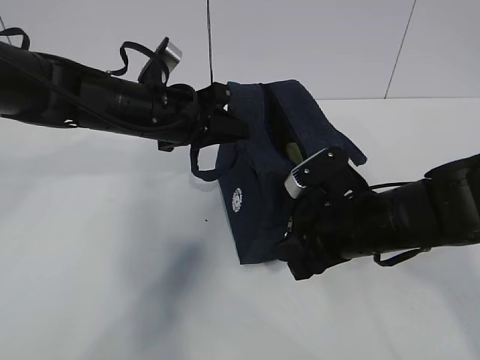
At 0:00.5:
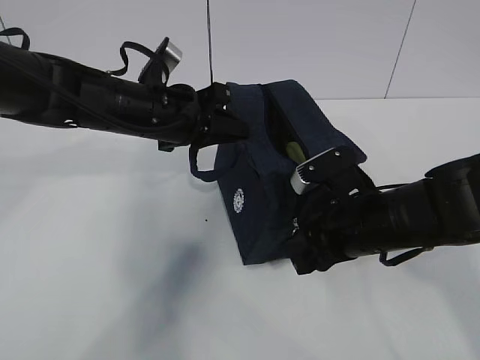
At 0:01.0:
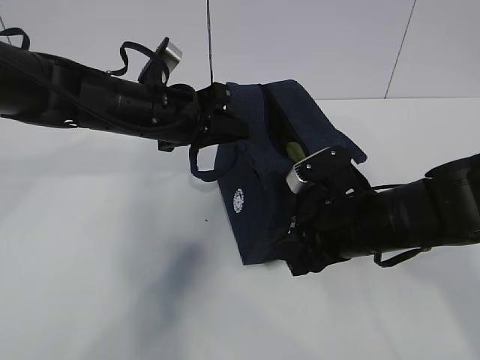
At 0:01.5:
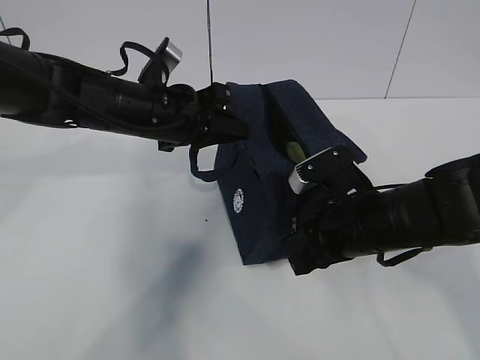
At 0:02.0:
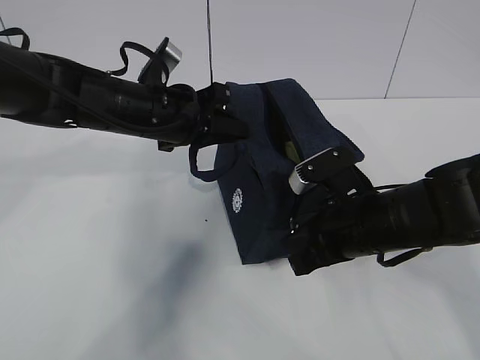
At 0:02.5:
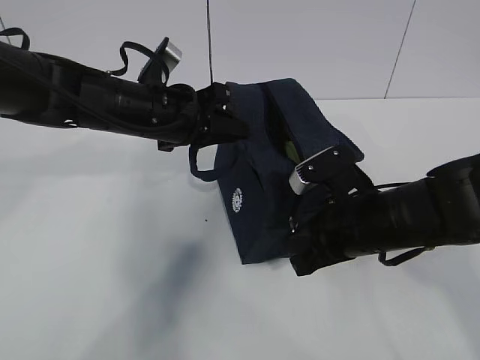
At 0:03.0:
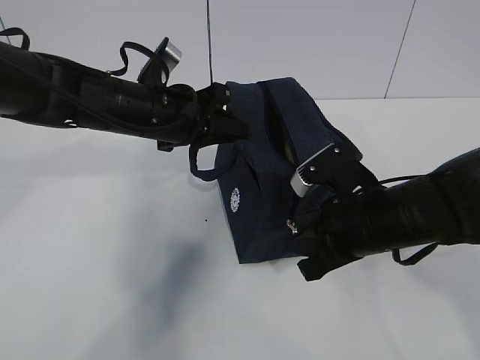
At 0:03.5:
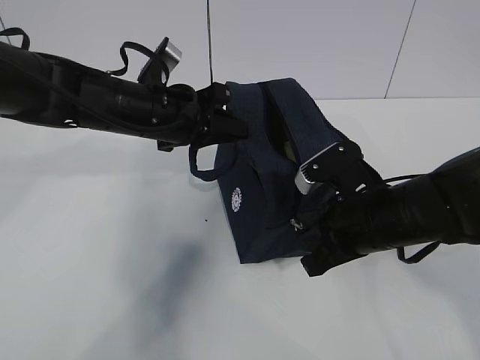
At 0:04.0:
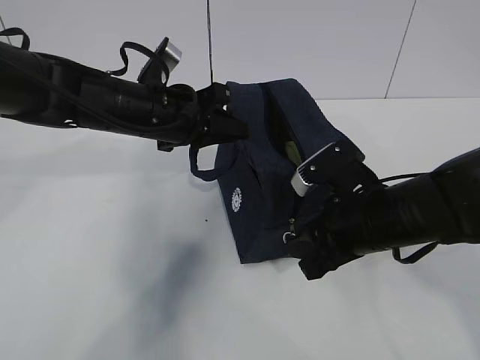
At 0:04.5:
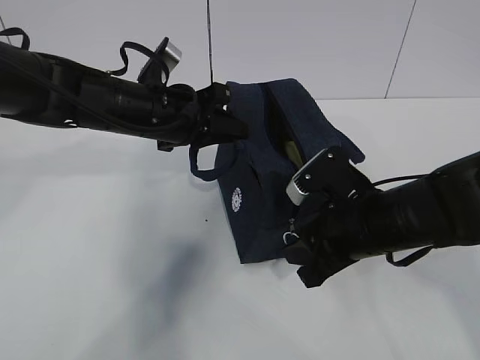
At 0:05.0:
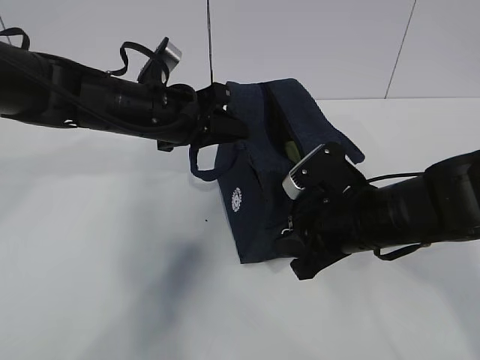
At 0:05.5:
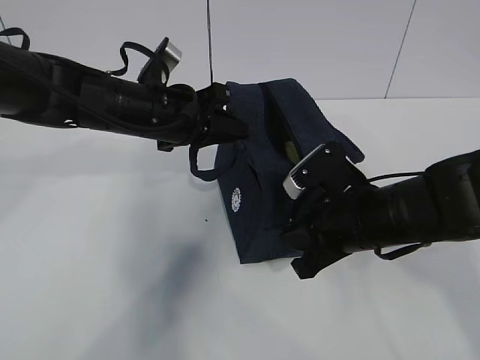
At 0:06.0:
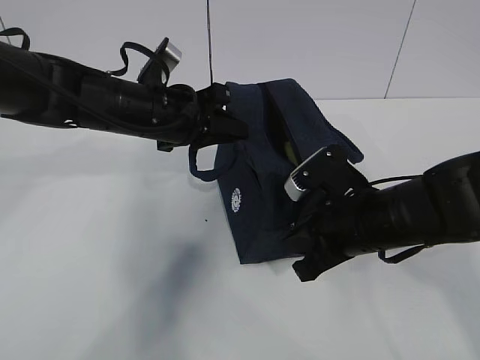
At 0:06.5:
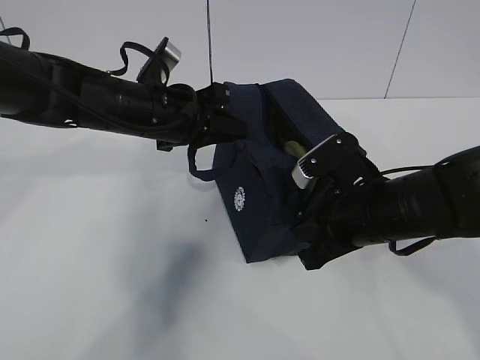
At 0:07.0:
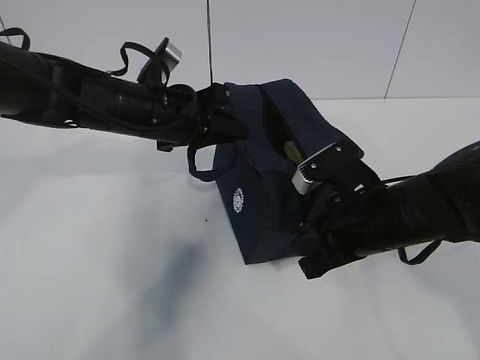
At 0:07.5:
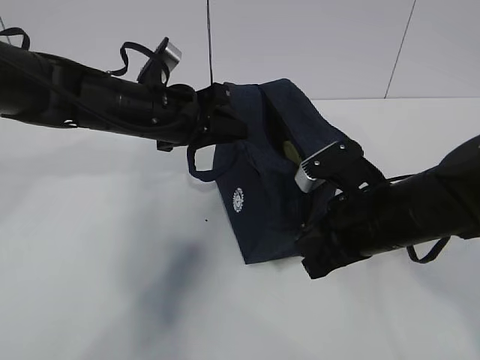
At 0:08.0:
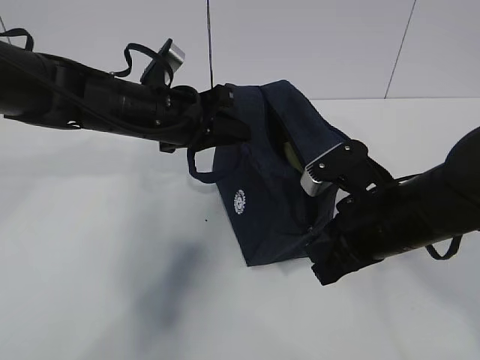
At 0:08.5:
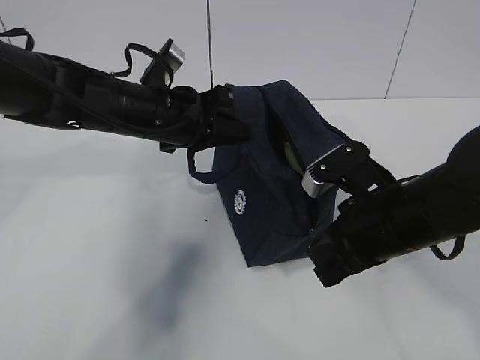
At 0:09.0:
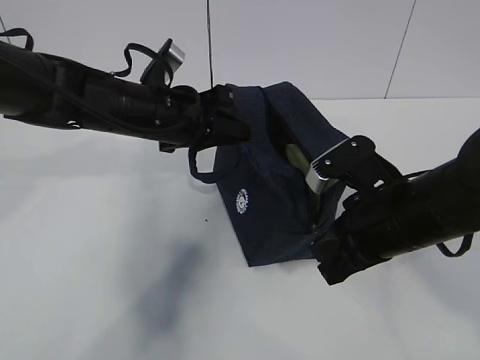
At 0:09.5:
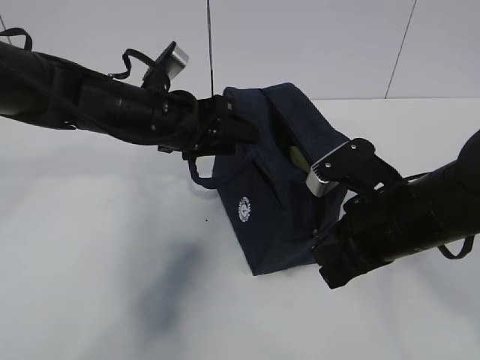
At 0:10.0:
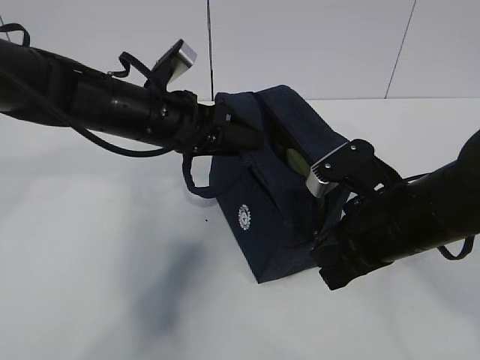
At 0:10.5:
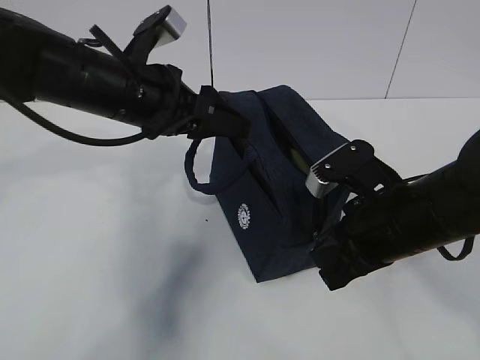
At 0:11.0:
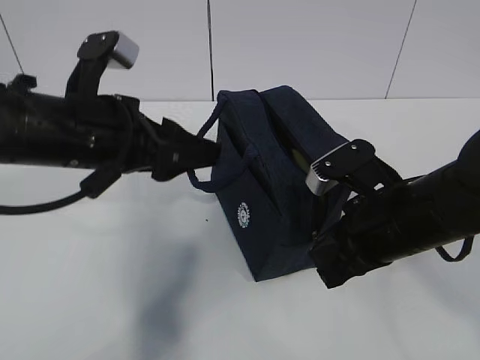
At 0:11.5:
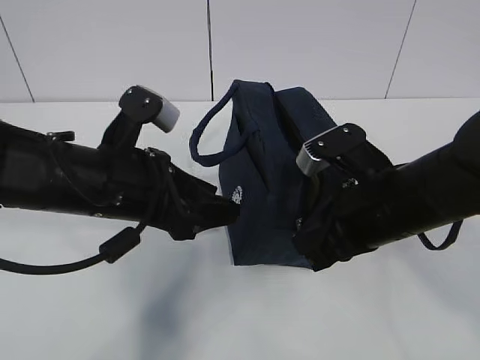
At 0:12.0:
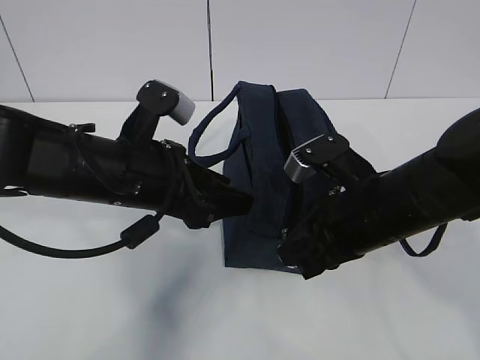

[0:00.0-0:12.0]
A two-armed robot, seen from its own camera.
0:00.0 to 0:02.0: The right gripper closes its fingers.
0:02.0 to 0:04.0: The right gripper opens.
0:04.0 to 0:06.0: The right gripper closes up.
0:06.0 to 0:08.0: There are only small adjustments of the grippers.
0:08.0 to 0:10.0: The left gripper opens up.
0:10.0 to 0:12.0: The left gripper is displaced backward by roughly 10 cm.

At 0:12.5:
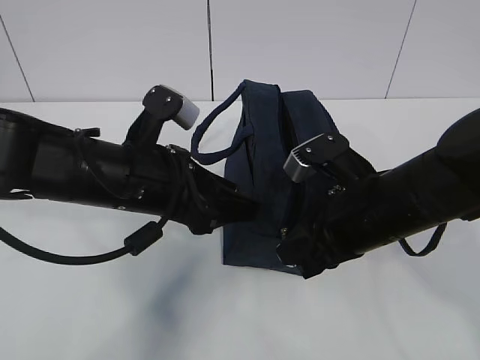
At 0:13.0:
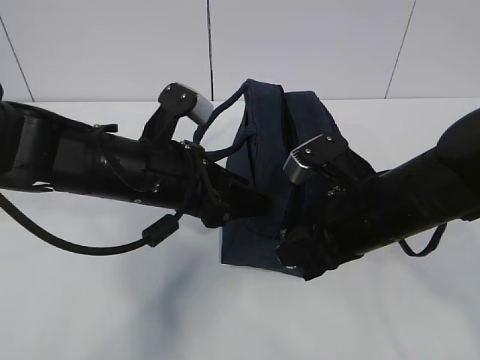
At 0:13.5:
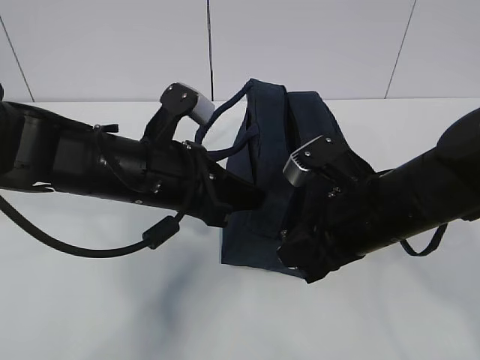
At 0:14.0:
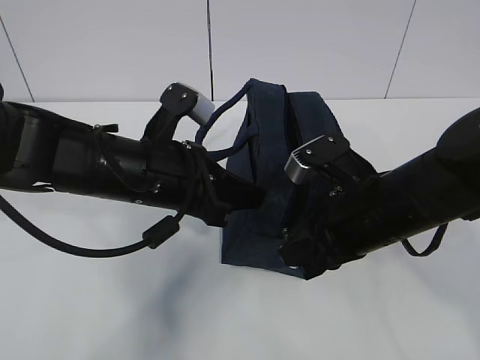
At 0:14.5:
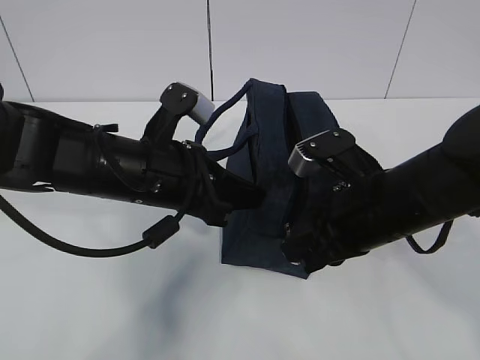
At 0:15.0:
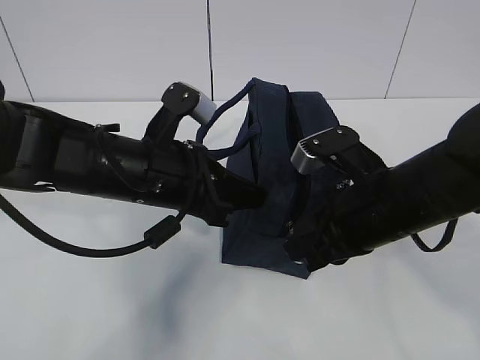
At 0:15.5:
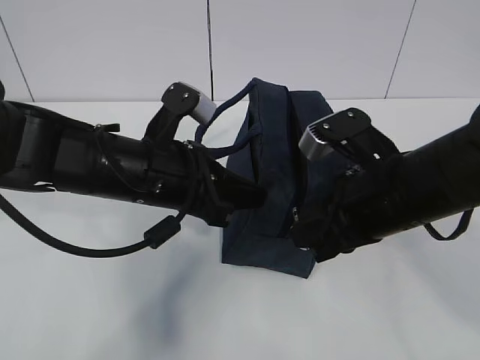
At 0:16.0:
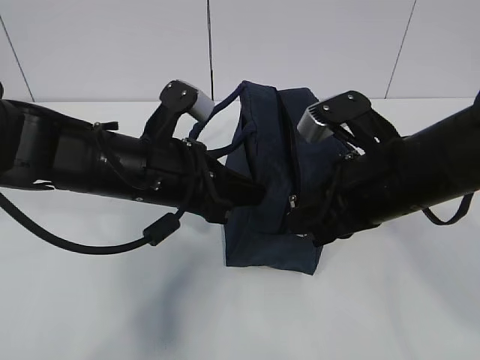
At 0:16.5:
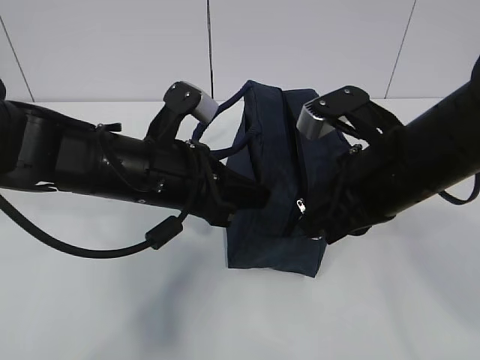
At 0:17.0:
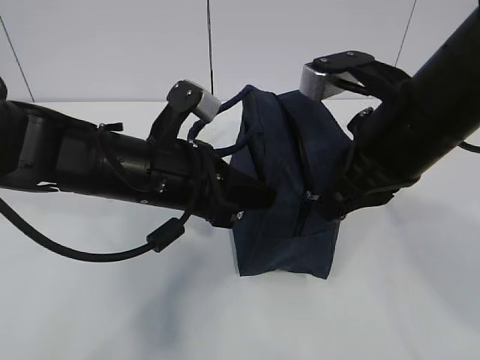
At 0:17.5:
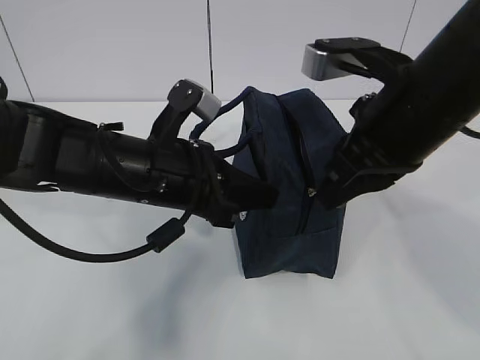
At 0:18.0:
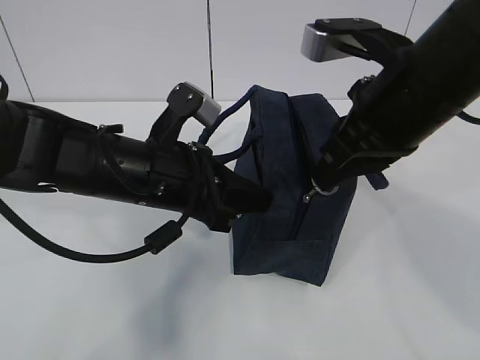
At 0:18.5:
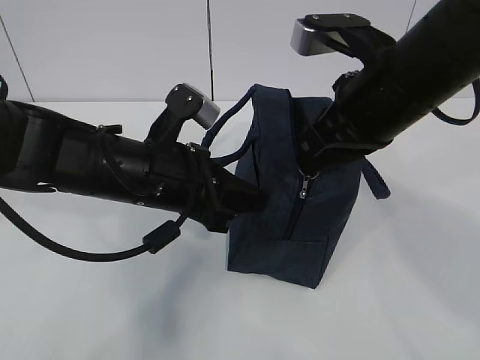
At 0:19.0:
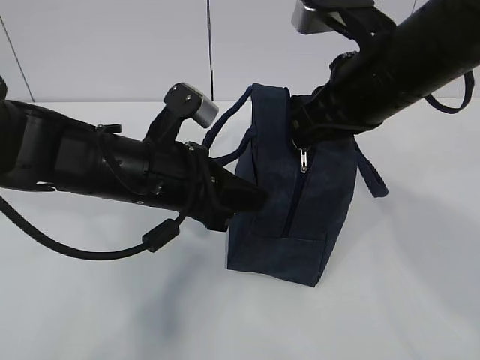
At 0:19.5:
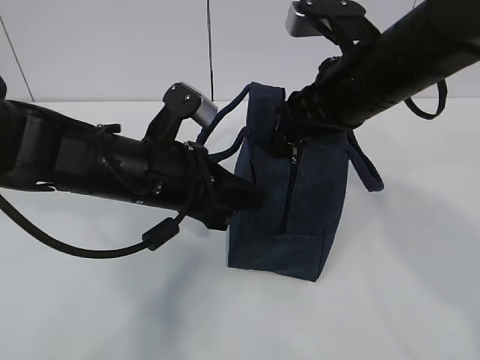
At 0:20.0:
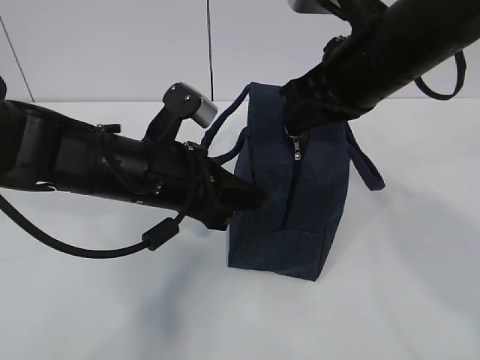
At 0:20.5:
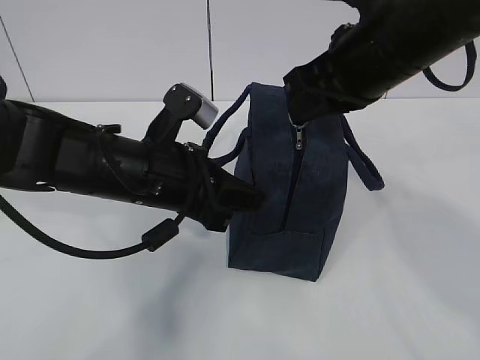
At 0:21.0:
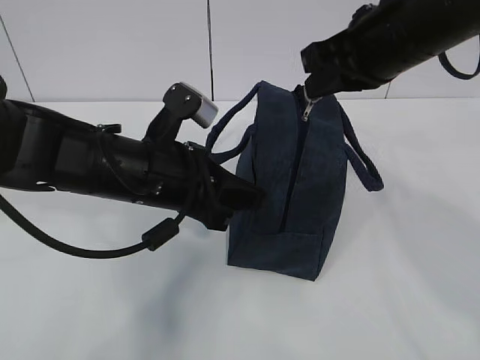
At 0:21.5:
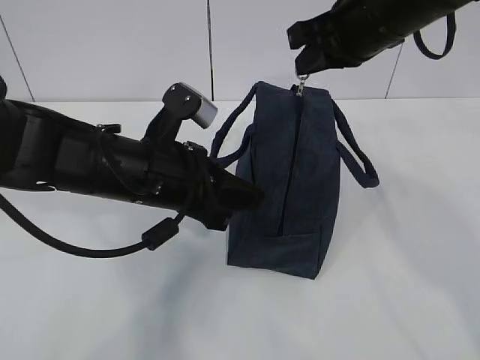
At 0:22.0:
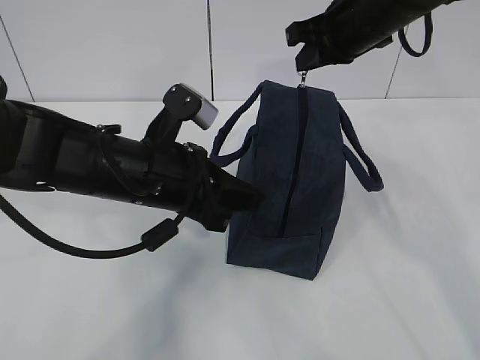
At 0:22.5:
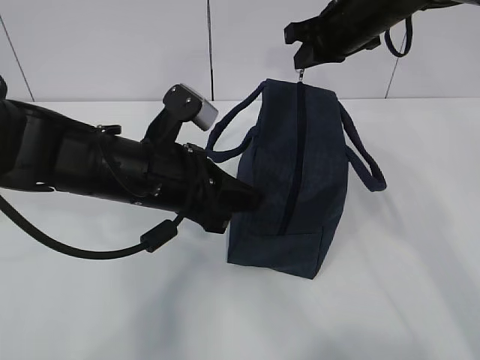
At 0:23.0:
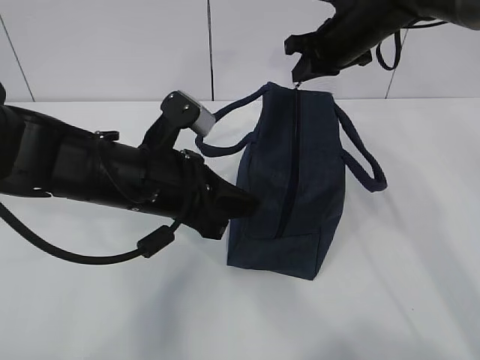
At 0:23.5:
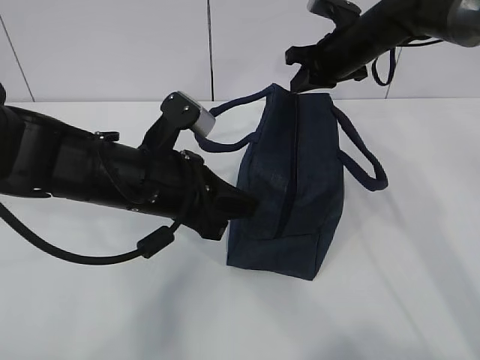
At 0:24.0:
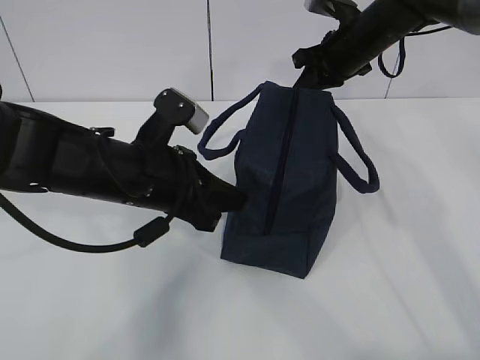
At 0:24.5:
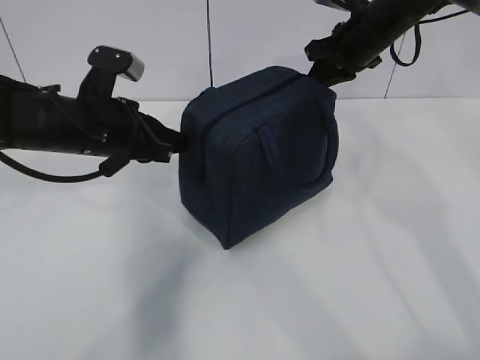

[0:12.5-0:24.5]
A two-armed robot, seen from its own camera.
0:12.5 to 0:14.5: The left gripper closes.
0:14.5 to 0:16.5: The right gripper moves upward, approximately 5 cm.
0:16.5 to 0:18.5: The right gripper is displaced upward by roughly 5 cm.
0:18.5 to 0:20.5: The grippers make only small movements.
0:20.5 to 0:22.5: The right gripper shifts about 15 cm forward.
0:22.5 to 0:24.5: The left gripper is displaced to the left and forward by about 10 cm.

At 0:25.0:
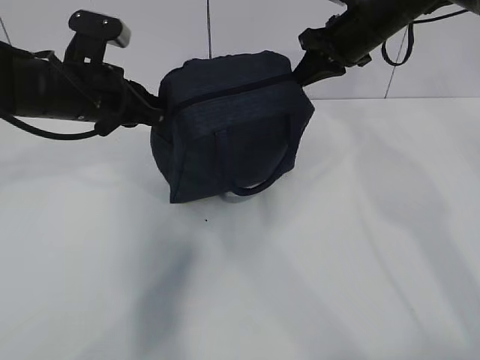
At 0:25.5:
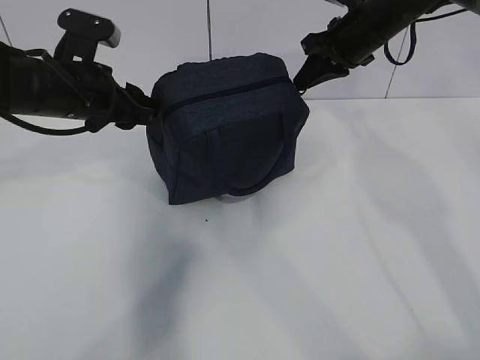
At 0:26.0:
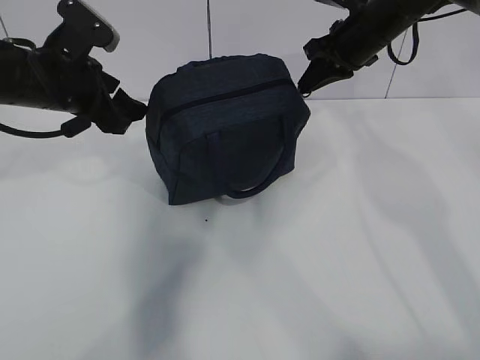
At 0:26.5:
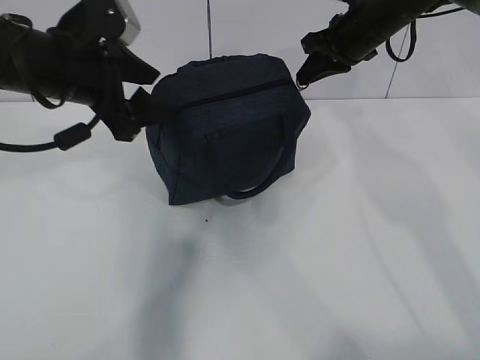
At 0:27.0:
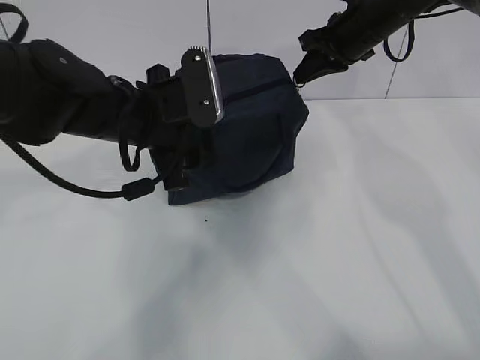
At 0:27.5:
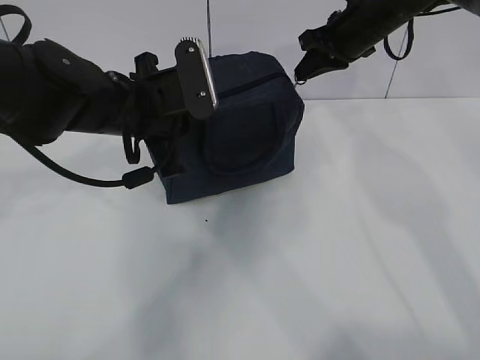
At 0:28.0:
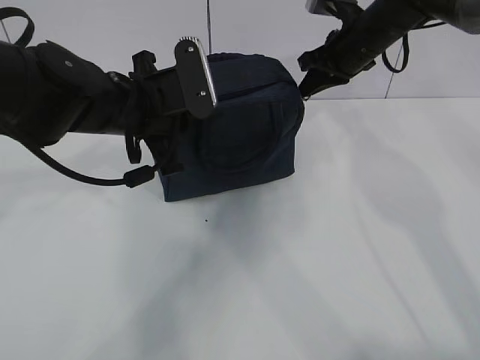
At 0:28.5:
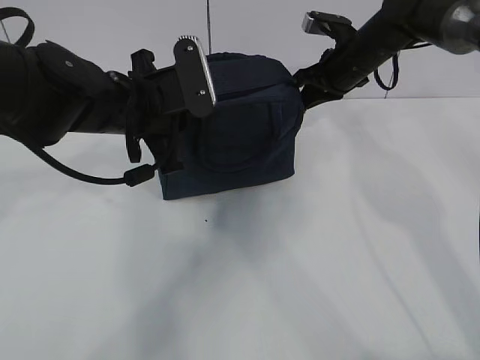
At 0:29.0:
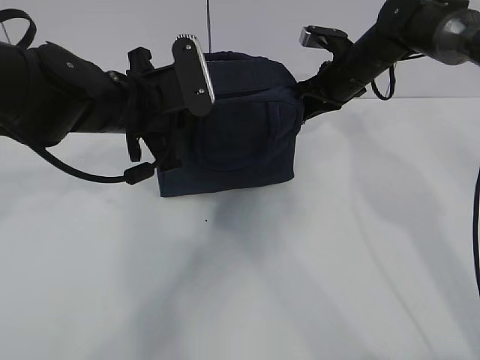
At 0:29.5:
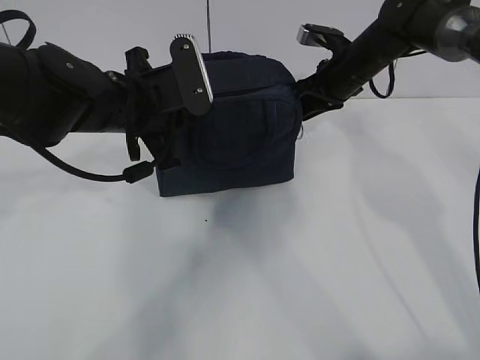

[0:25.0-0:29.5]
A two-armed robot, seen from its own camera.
0:25.0 to 0:27.0: The left gripper is displaced to the right by roughly 5 cm, and opens up.
0:27.0 to 0:29.5: The right gripper is displaced downward by some 5 cm, while the left gripper closes.
